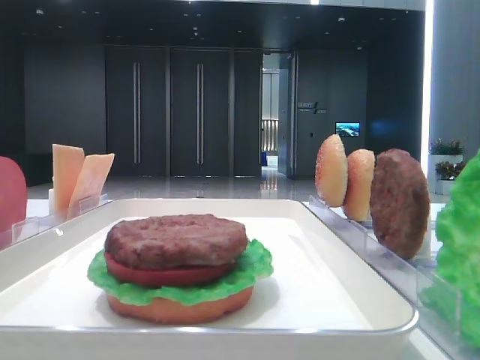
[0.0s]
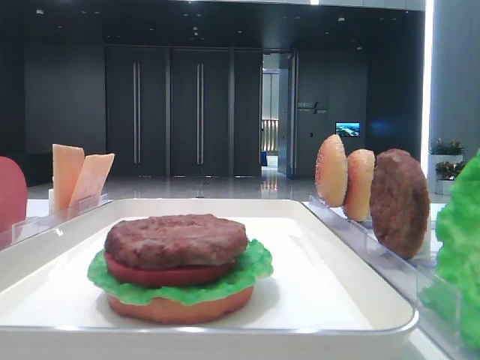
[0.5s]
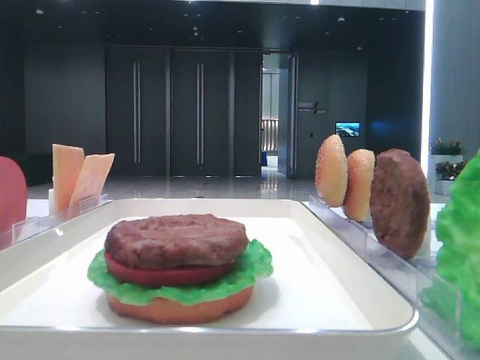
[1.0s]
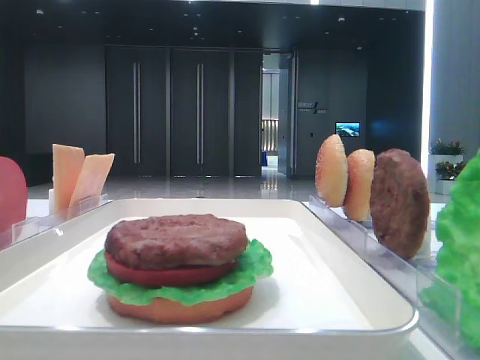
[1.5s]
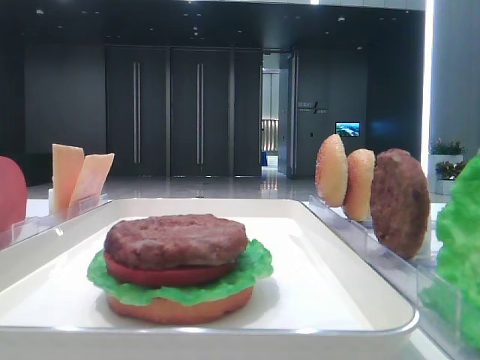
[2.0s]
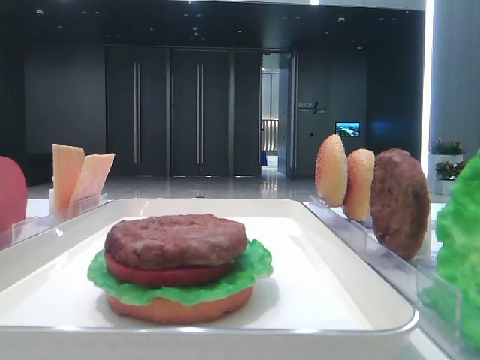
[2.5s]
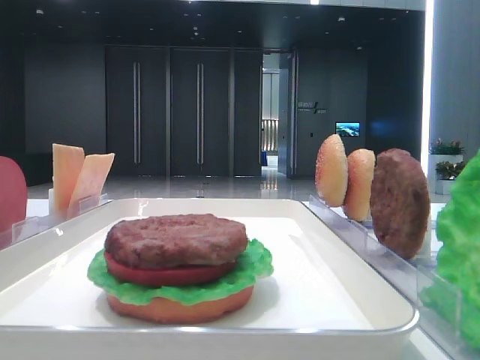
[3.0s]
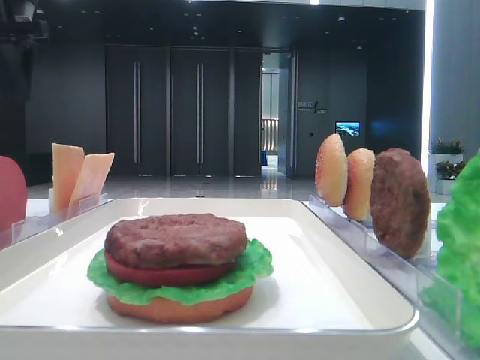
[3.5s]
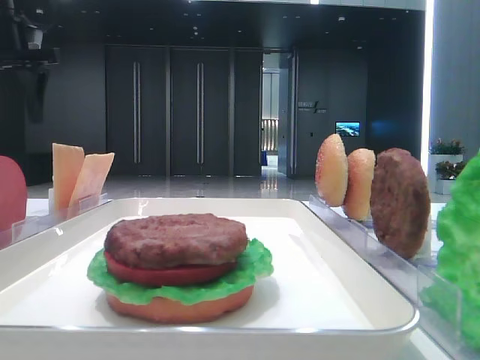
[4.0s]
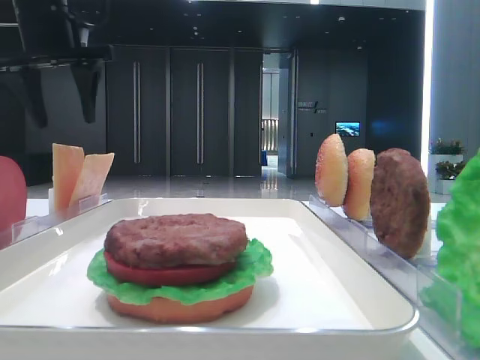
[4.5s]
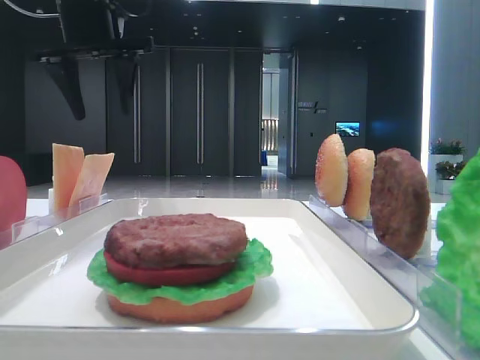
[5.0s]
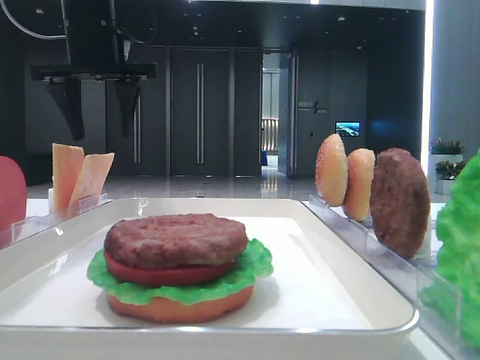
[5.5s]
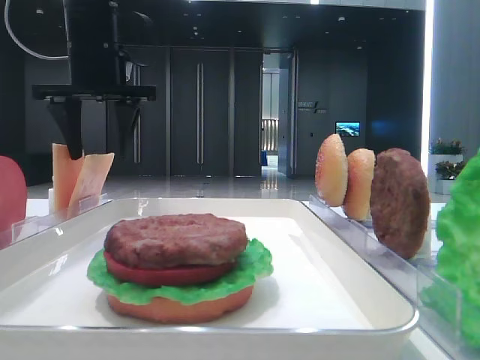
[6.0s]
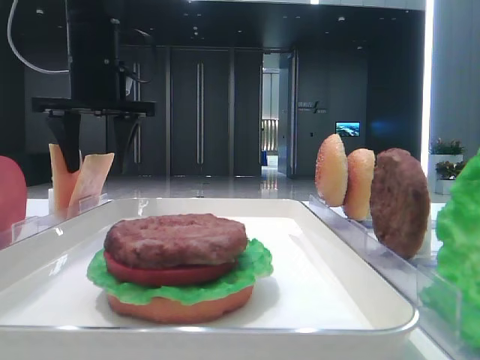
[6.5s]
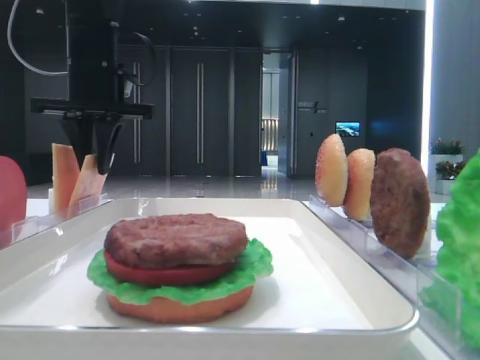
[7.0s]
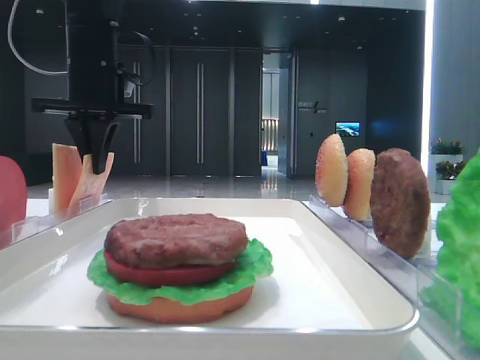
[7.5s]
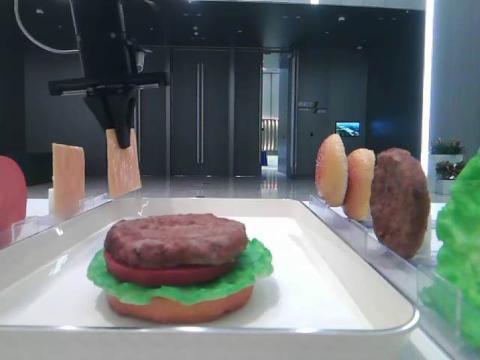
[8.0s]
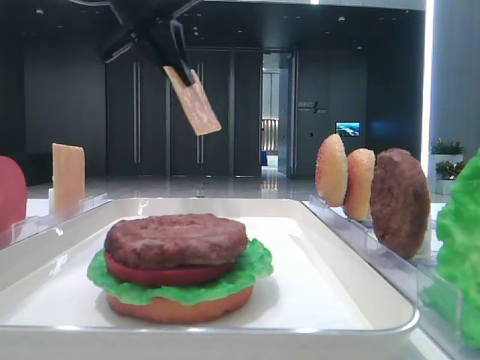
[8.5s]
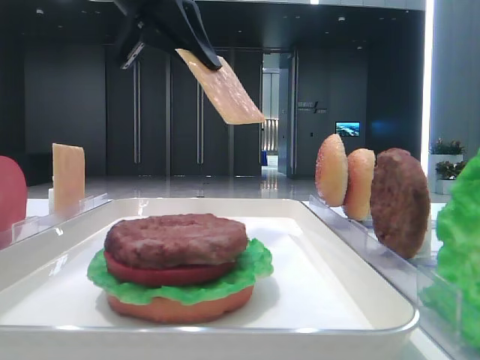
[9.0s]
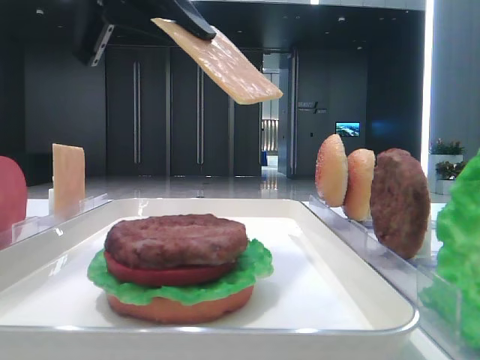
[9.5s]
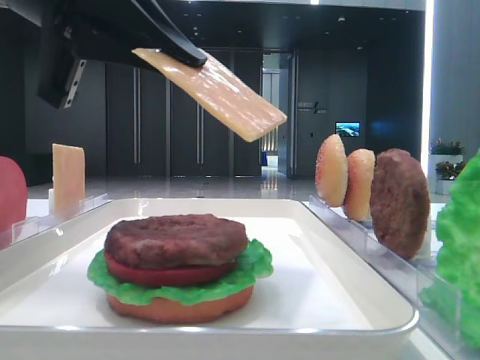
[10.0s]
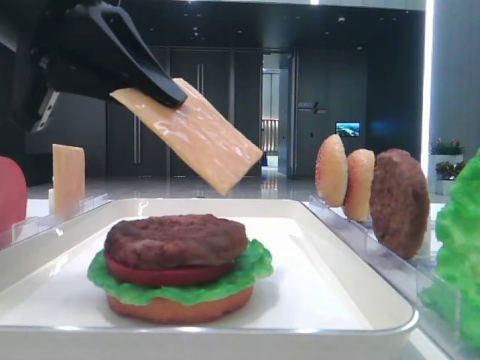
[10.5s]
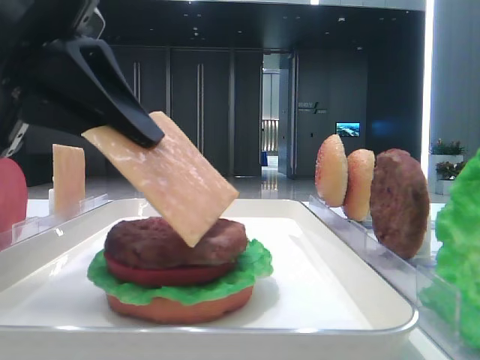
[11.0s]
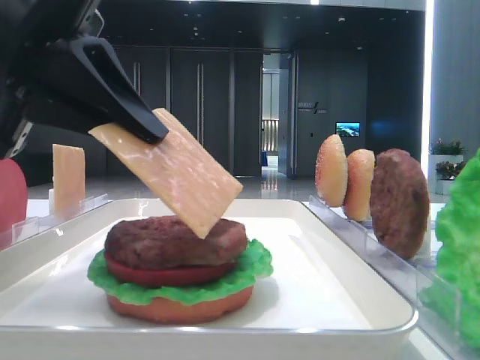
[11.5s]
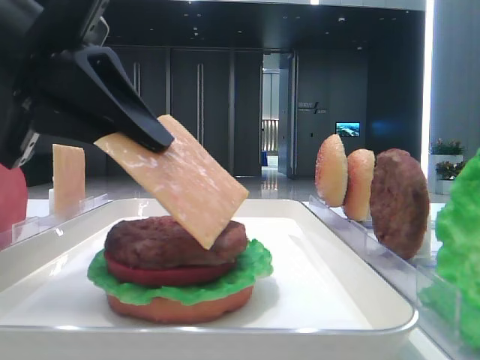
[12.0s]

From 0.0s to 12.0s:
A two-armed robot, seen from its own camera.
Step, from 0.0s to 7.0s: Pick up the cheese slice with the left hand.
From 2.0s to 4.0s: The left gripper heads forward, covering roughly 35 cm.
From 4.0s to 6.0s: The left gripper heads to the right, covering approximately 15 cm.
From 6.0s to 8.0s: The left gripper closes.
From 8.0s to 10.0s: The left gripper is displaced backward by approximately 20 cm.
From 10.0s to 12.0s: There are only small adjustments of the grippers.

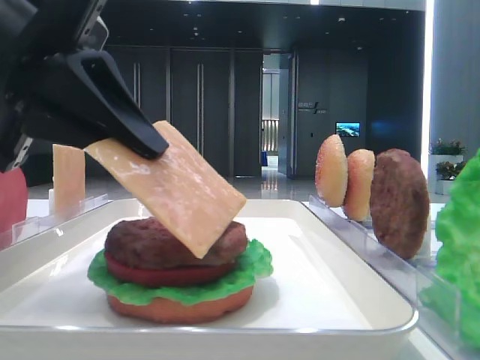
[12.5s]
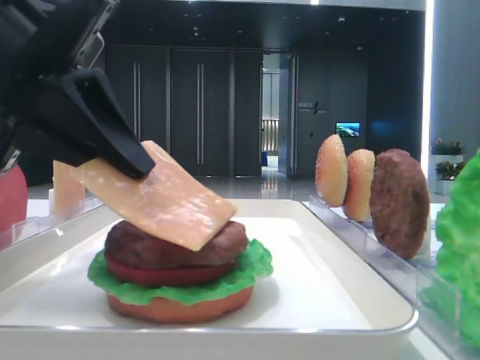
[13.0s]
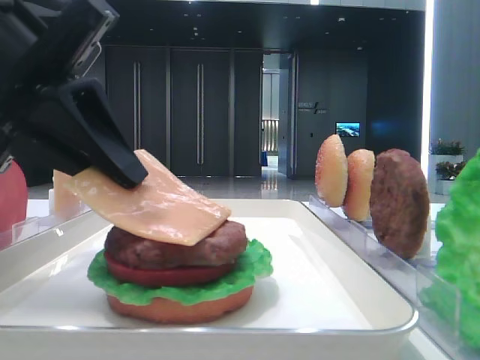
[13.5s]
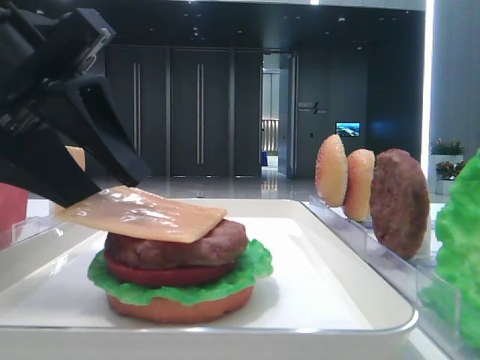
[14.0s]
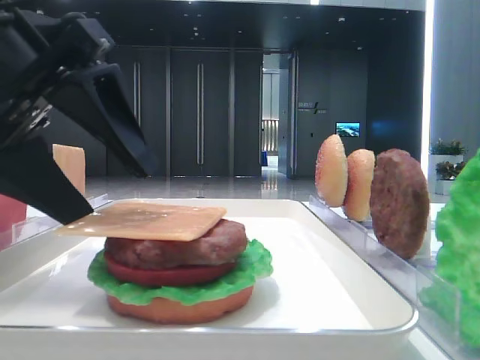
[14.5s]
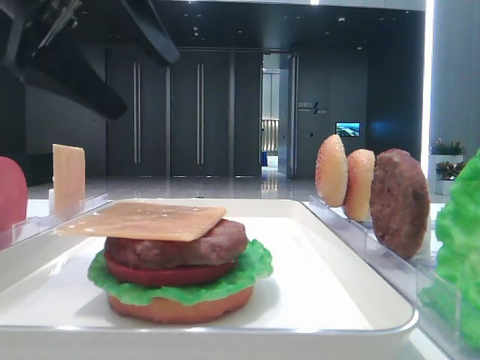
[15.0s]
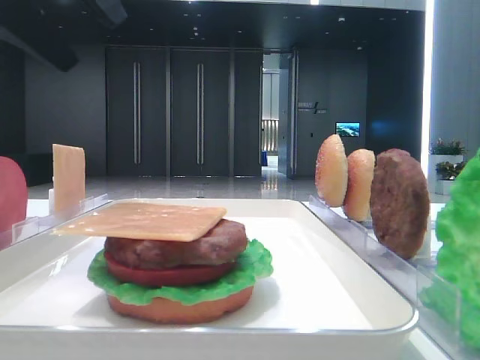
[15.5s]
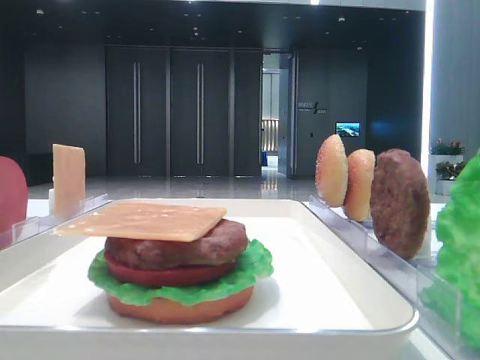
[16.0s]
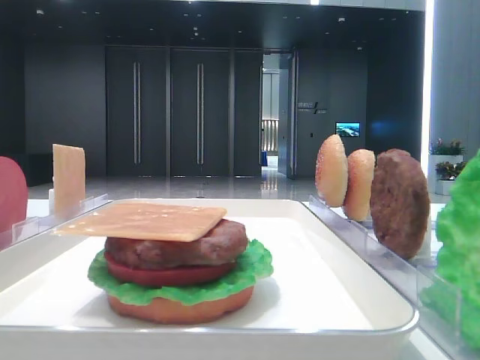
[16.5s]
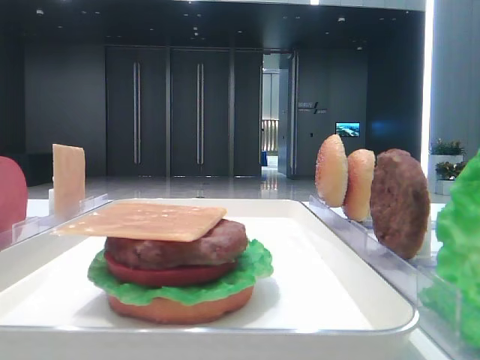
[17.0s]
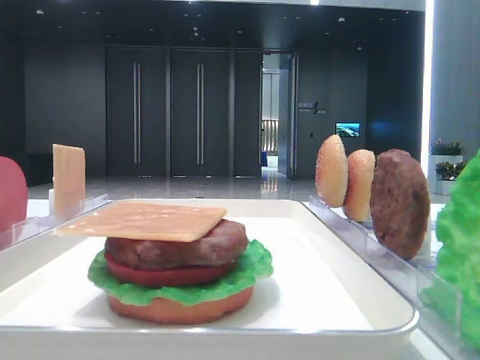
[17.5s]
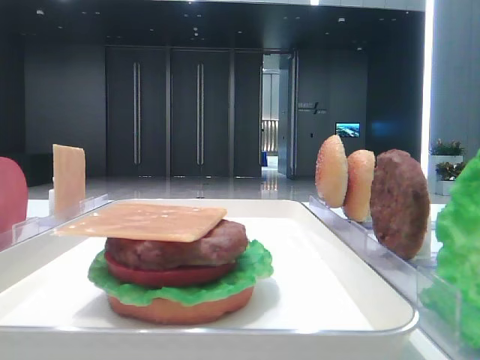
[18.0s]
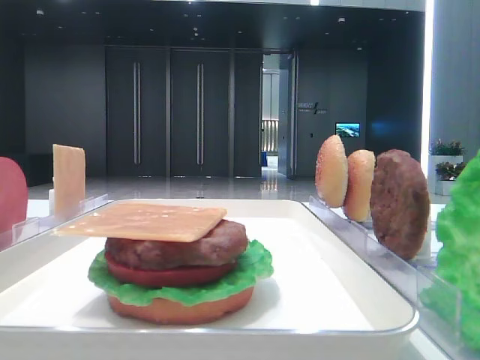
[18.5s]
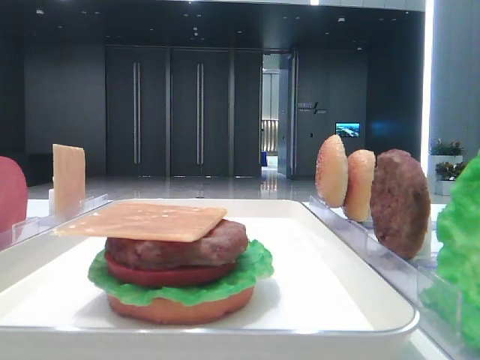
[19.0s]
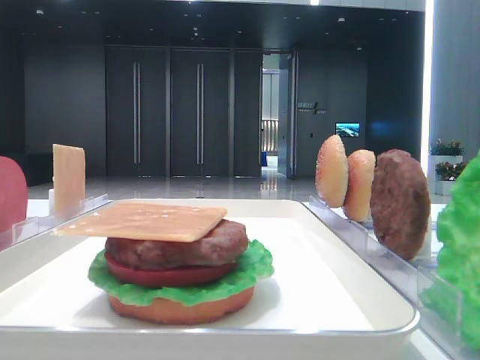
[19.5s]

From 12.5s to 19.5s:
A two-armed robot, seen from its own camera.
Step, from 12.5s to 14.5s: Place the cheese slice on the patty with the left hand.
From 12.5s to 14.5s: The left gripper opens its fingers.
From 14.5s to 16.0s: The left gripper goes about 20 cm upward and to the left.

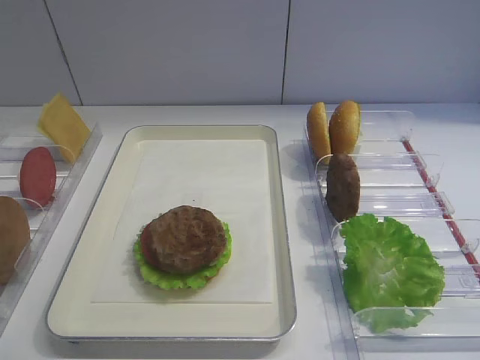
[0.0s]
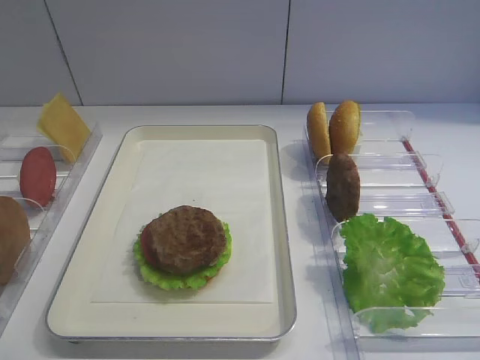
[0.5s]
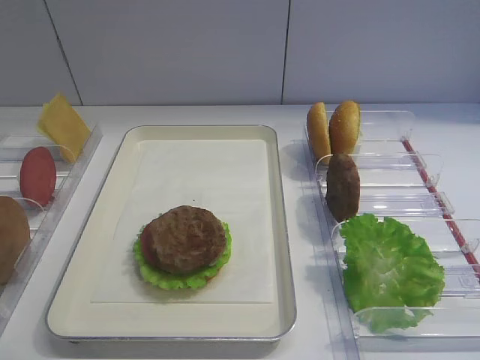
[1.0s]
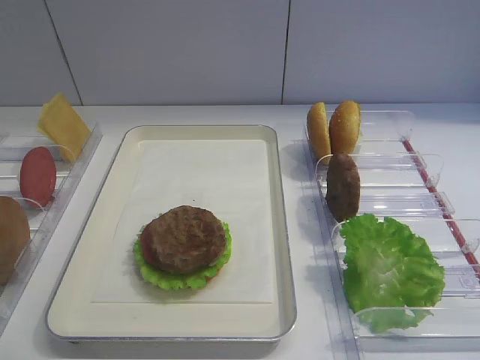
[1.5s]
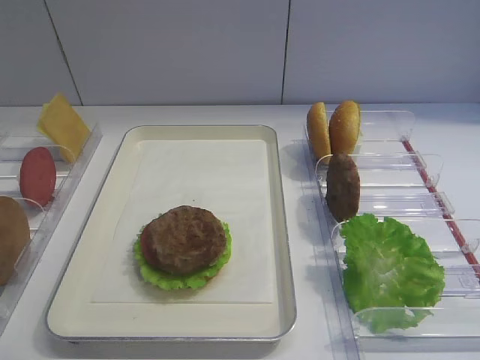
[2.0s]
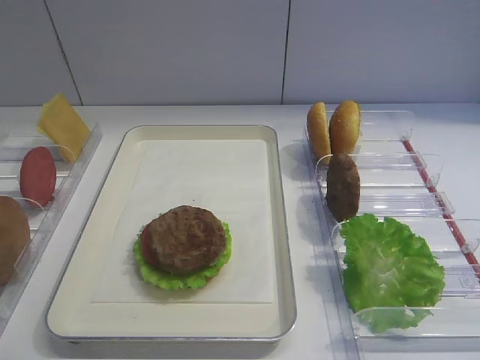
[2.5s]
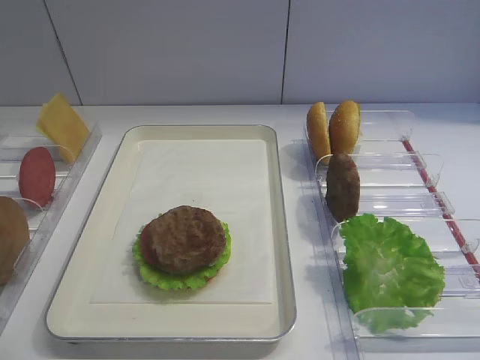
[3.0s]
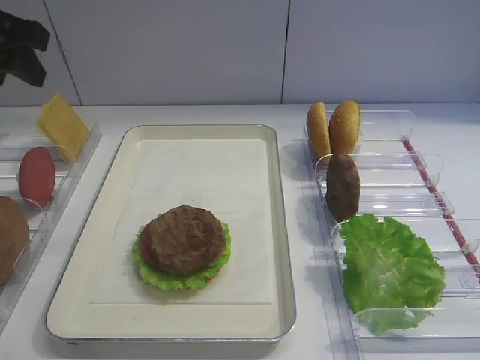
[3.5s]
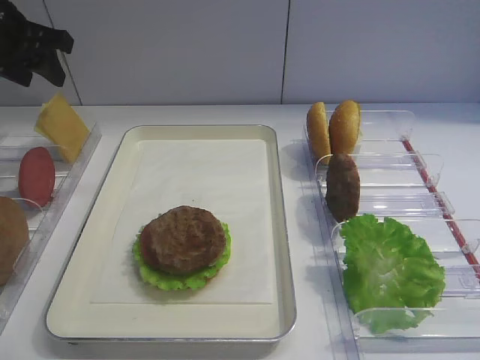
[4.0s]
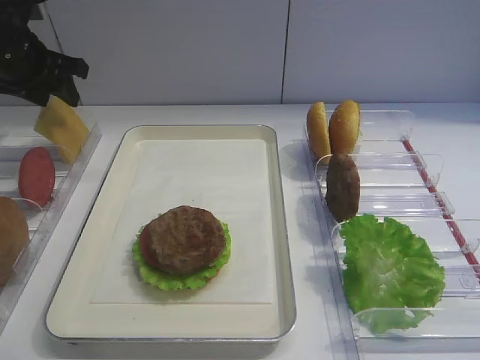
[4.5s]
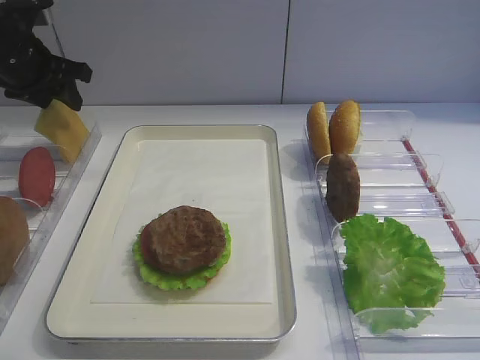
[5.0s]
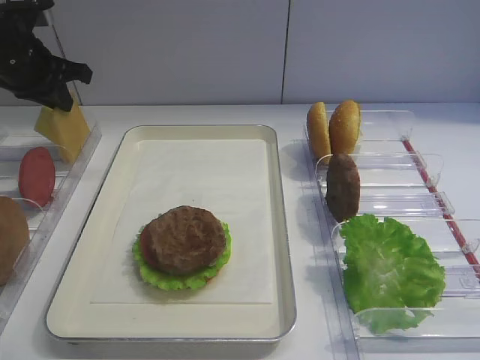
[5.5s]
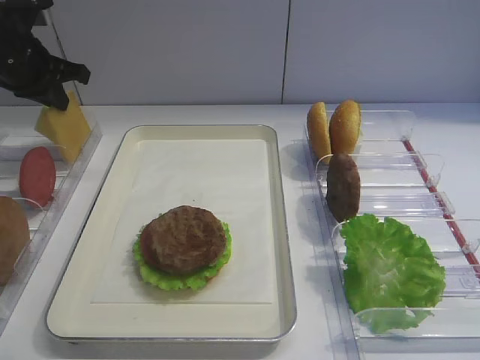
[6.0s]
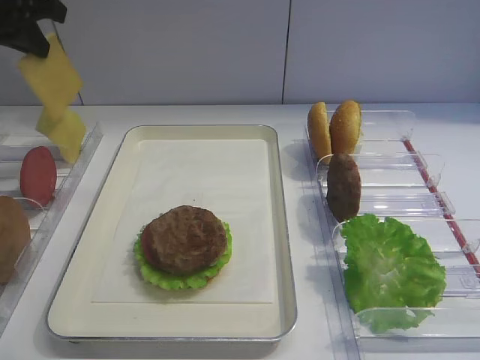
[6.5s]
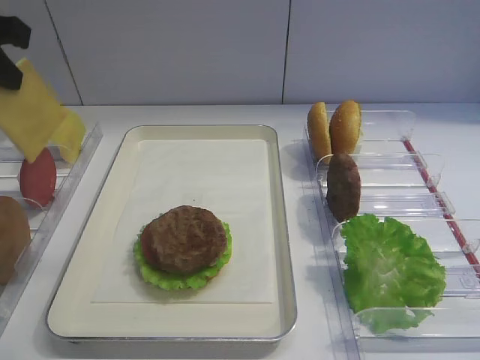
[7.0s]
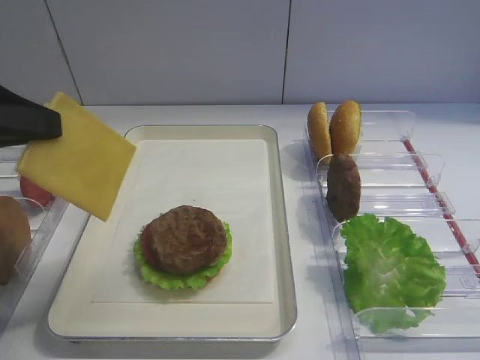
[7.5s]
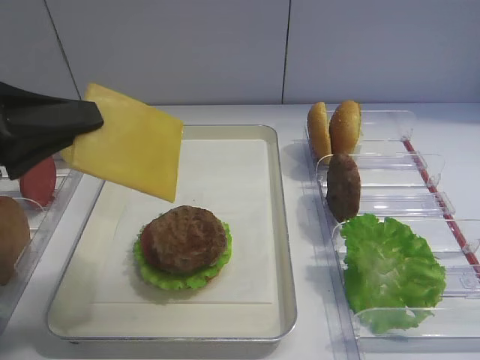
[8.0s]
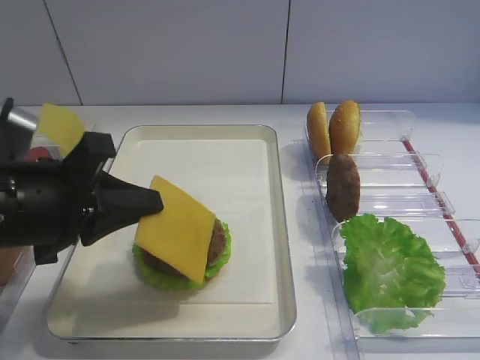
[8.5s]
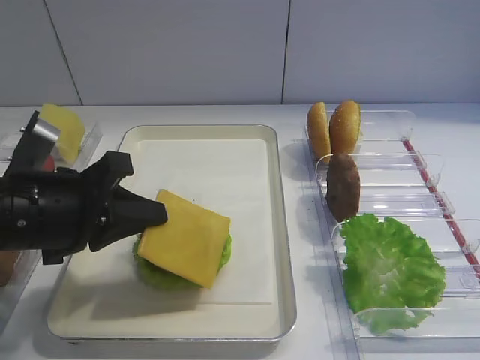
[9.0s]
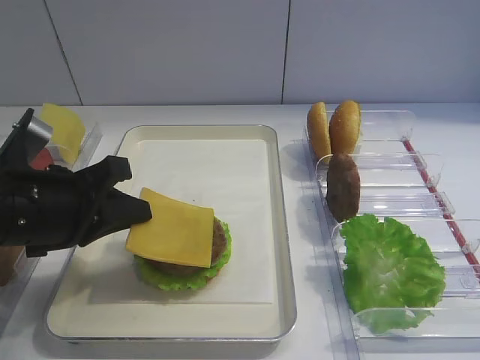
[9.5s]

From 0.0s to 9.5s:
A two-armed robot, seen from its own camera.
Step, from 0.0s to 6.5s: Pick up the cheese slice with the left gripper.
From 2.0s to 4.0s: The left gripper goes about 40 cm forward.
From 4.0s to 5.5s: The left gripper travels downward by roughly 5 cm, and closes its fingers.
From 5.5s to 7.5s: The left gripper shifts about 25 cm backward.
From 7.5s to 9.5s: The left gripper is displaced downward and to the right by roughly 15 cm.
